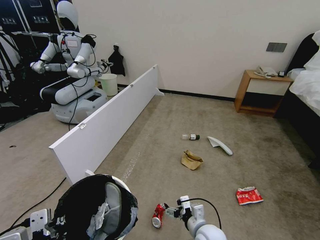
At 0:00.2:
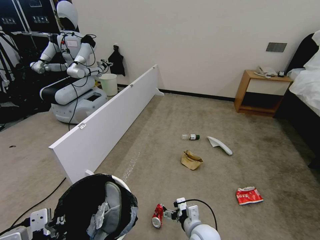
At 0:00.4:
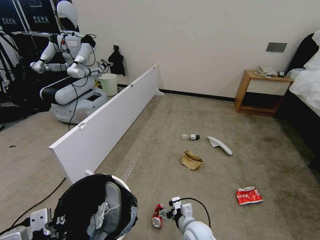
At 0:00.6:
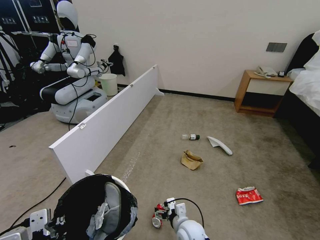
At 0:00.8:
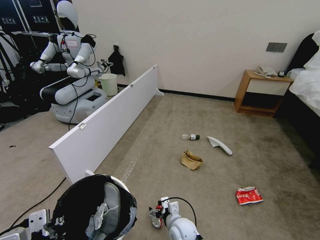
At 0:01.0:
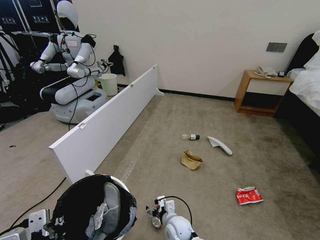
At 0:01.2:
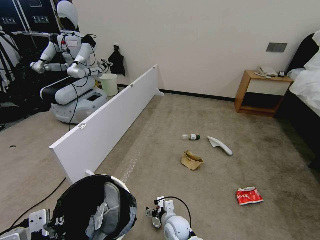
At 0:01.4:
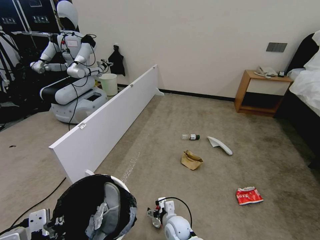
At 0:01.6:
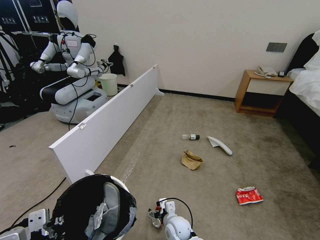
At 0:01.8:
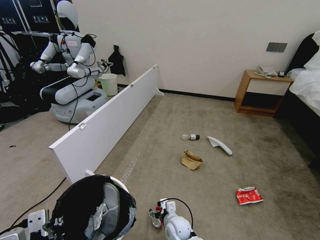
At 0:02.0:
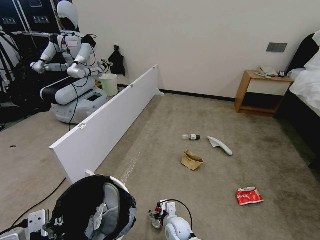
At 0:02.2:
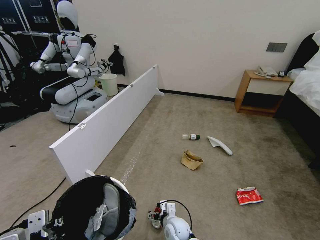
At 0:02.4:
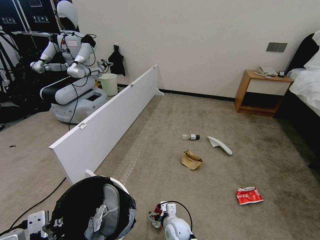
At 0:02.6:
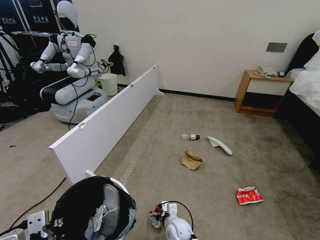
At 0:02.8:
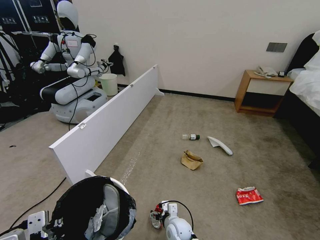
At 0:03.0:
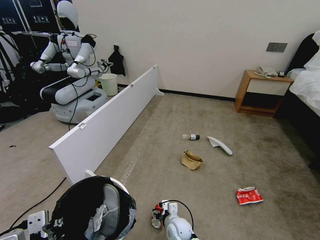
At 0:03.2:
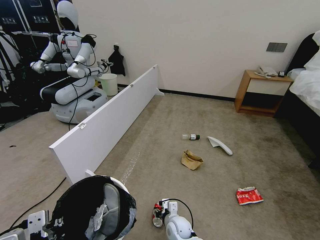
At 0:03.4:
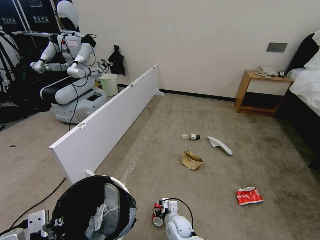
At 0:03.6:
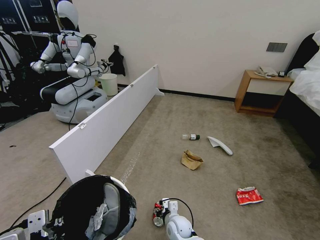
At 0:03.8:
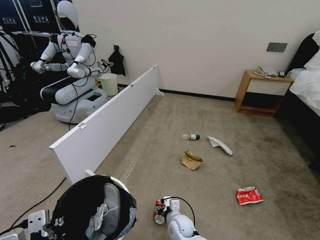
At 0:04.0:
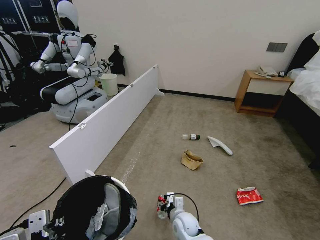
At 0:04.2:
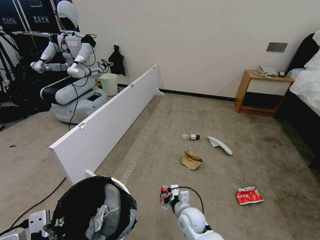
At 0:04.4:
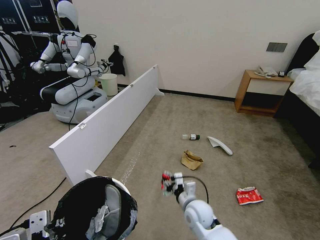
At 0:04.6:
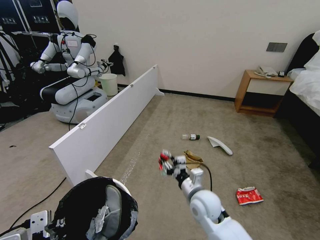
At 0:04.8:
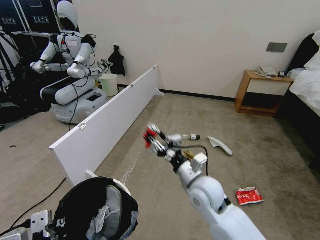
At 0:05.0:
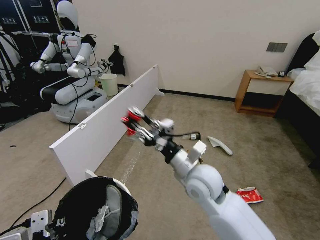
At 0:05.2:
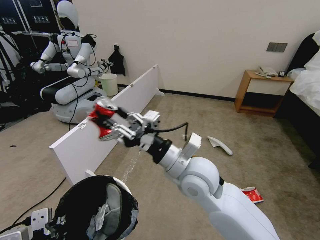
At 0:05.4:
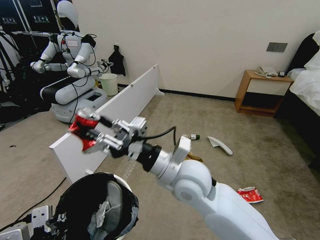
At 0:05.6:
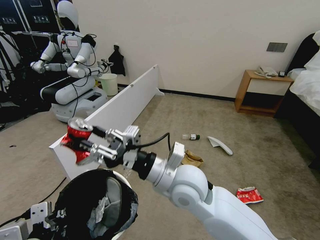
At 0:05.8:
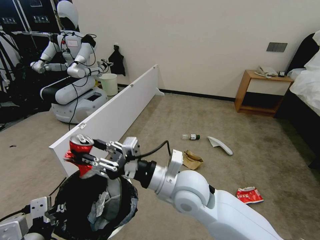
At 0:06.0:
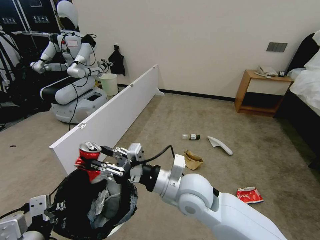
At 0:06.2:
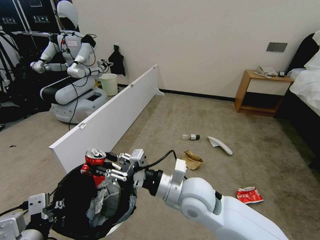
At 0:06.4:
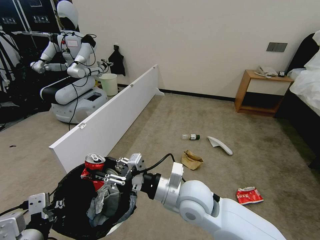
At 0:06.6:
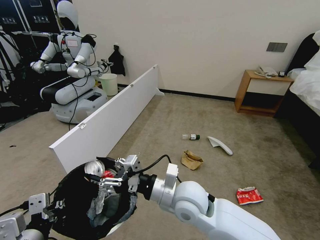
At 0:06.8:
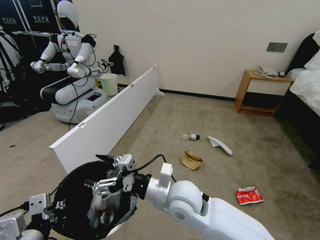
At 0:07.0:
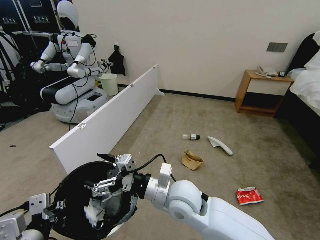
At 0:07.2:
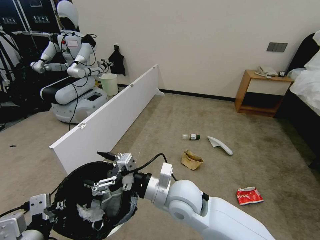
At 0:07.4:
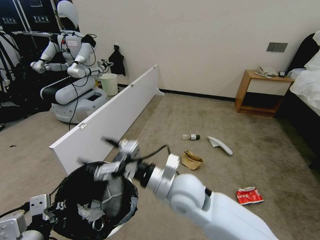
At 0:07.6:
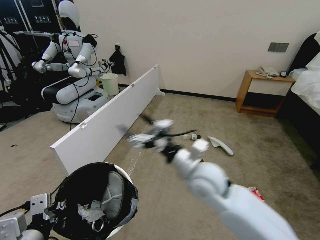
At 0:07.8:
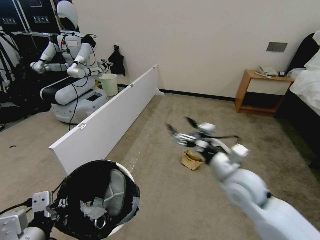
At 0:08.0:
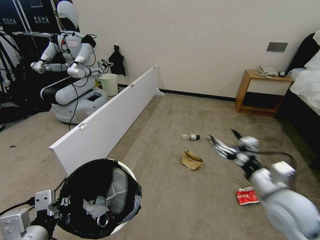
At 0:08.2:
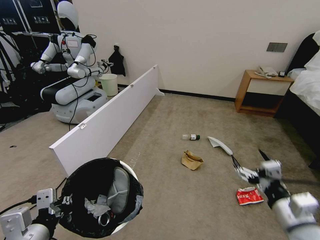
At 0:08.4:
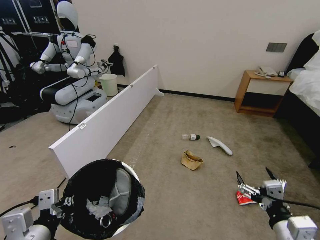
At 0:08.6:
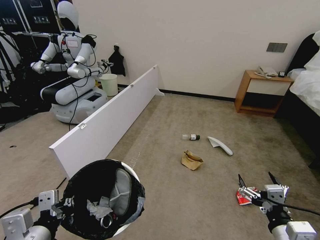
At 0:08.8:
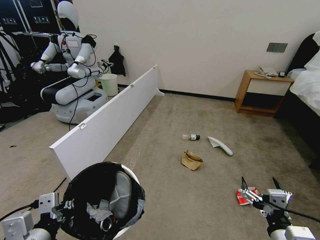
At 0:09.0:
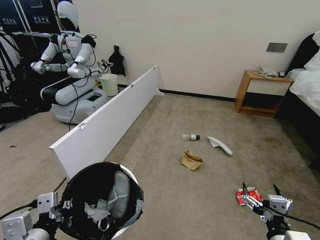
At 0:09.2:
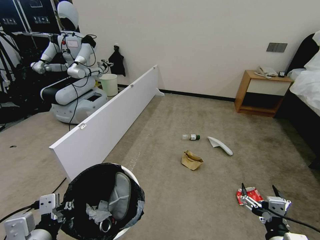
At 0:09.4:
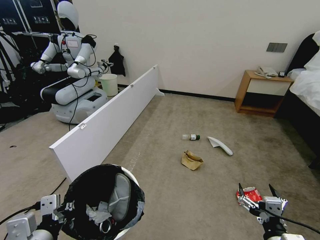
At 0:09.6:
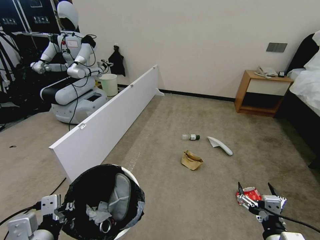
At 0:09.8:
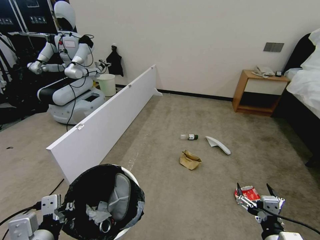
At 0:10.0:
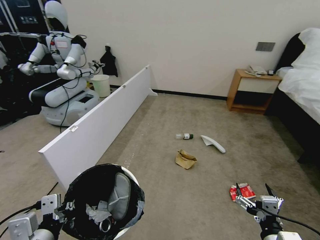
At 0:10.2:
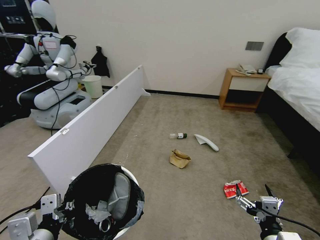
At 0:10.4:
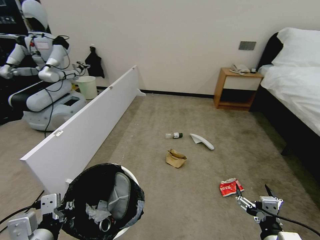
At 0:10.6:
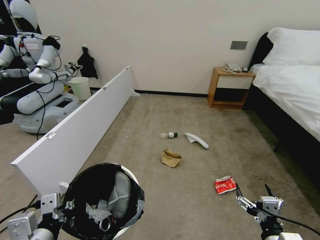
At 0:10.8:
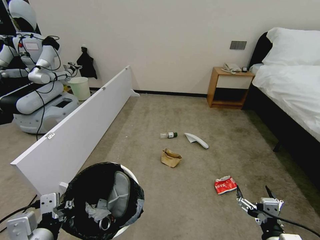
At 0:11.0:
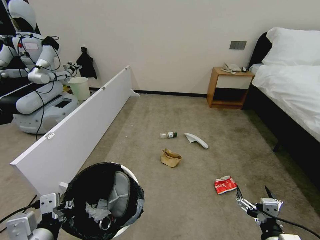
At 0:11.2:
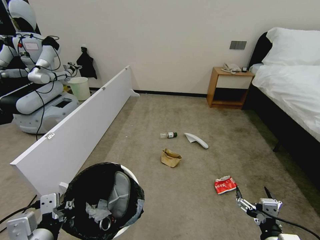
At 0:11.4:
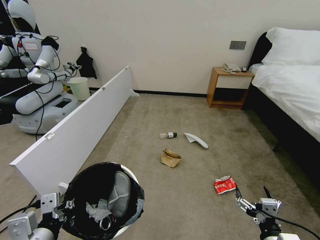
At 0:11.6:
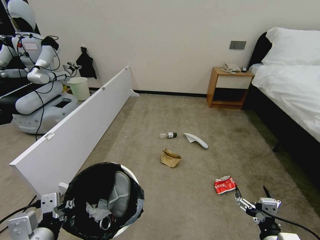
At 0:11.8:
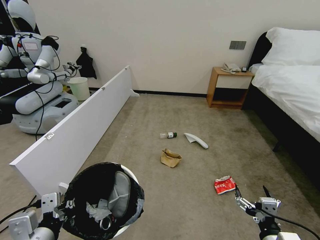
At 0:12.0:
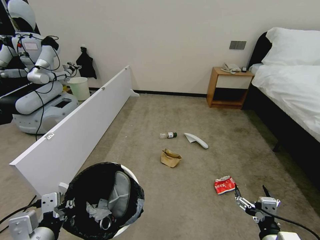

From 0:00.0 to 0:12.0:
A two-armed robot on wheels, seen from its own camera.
Task of the whole recording: Pick up the trash bin, then pick up the garbage from the floor and place it into the trash bin.
From 0:00.0 to 0:01.6: The right gripper travels to the left, downward and forward by approximately 15 cm.
From 0:01.6 to 0:03.0: The grippers make only small movements.
From 0:03.0 to 0:04.4: The right gripper moves upward and to the right, some 15 cm.
From 0:04.4 to 0:06.0: The right gripper is displaced upward by about 20 cm.
From 0:06.0 to 0:07.6: The right gripper travels to the right by some 5 cm, and opens its fingers.
From 0:07.6 to 0:09.0: The right gripper travels backward, to the right and downward by about 30 cm.
From 0:10.4 to 0:12.0: The grippers move only a little.

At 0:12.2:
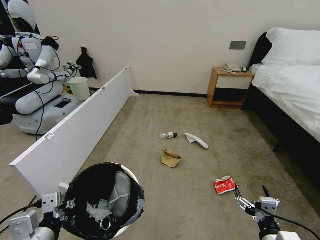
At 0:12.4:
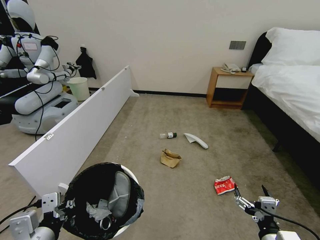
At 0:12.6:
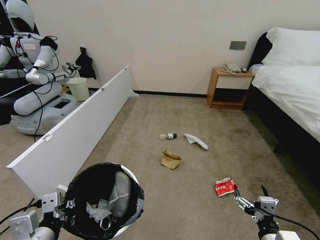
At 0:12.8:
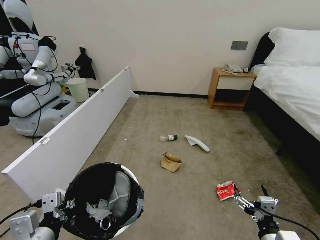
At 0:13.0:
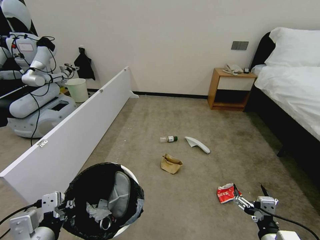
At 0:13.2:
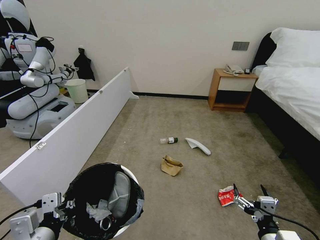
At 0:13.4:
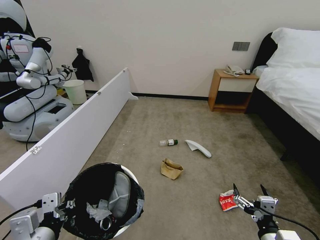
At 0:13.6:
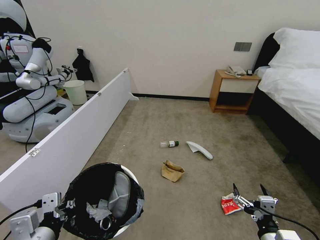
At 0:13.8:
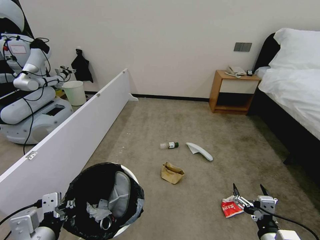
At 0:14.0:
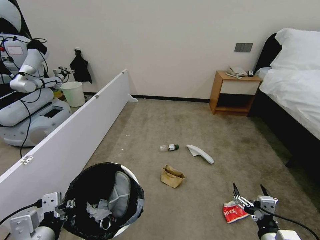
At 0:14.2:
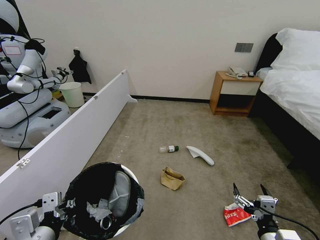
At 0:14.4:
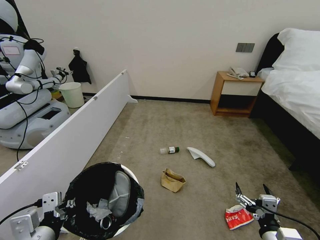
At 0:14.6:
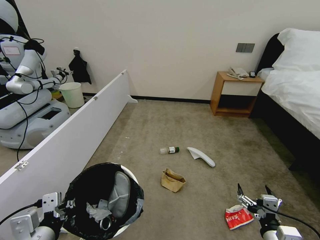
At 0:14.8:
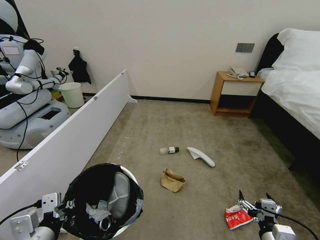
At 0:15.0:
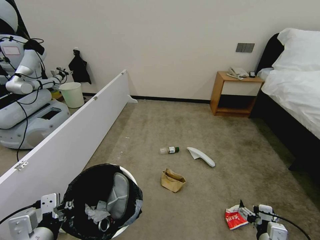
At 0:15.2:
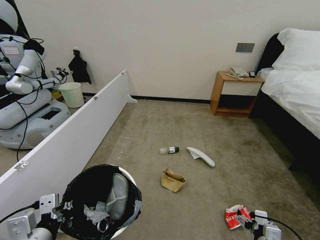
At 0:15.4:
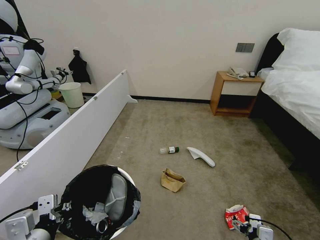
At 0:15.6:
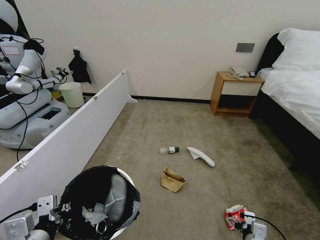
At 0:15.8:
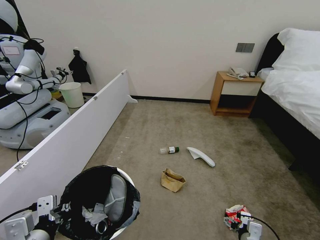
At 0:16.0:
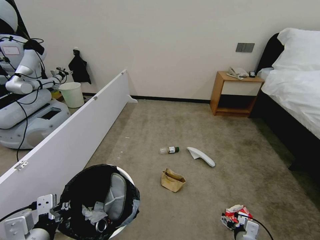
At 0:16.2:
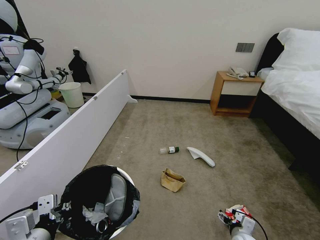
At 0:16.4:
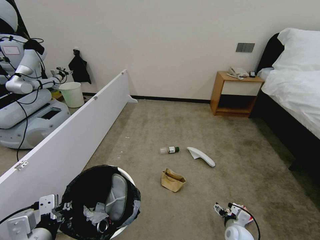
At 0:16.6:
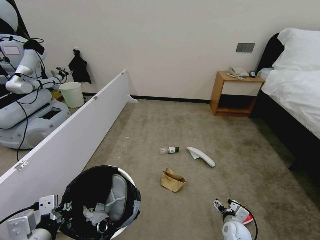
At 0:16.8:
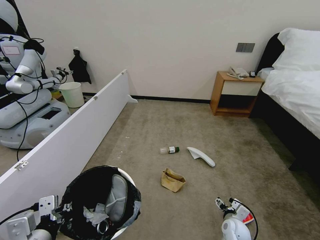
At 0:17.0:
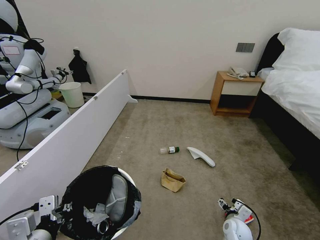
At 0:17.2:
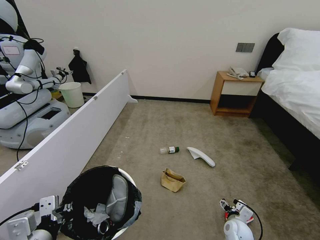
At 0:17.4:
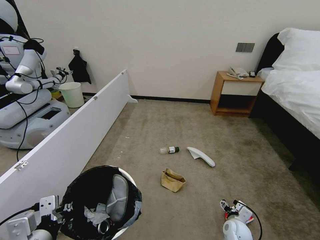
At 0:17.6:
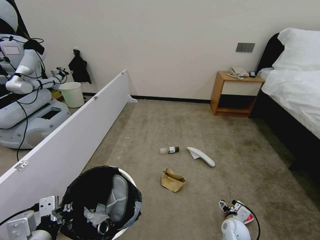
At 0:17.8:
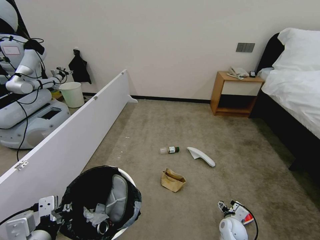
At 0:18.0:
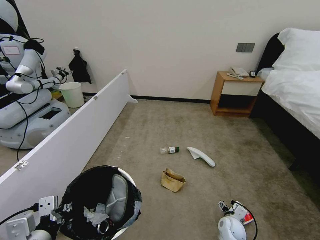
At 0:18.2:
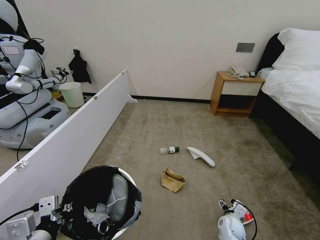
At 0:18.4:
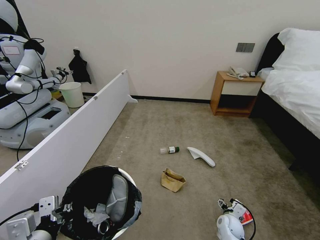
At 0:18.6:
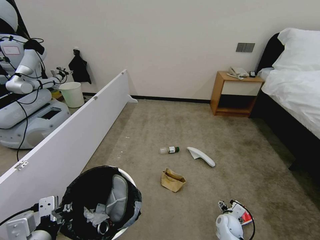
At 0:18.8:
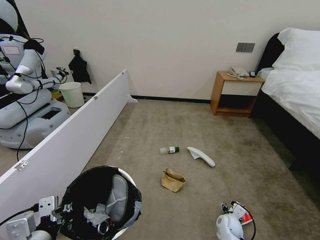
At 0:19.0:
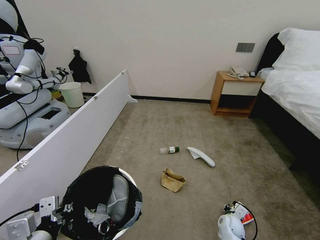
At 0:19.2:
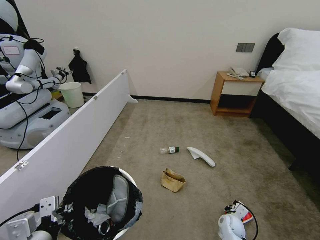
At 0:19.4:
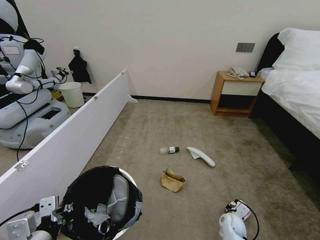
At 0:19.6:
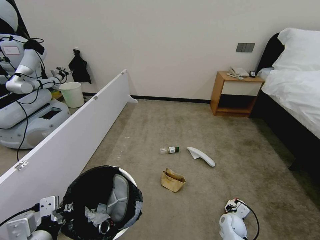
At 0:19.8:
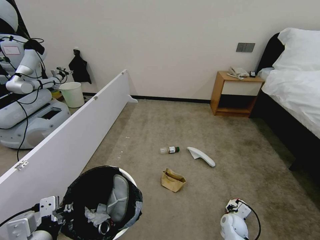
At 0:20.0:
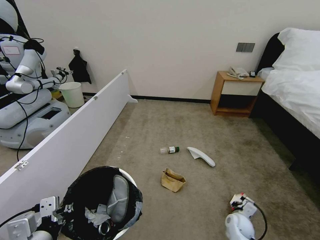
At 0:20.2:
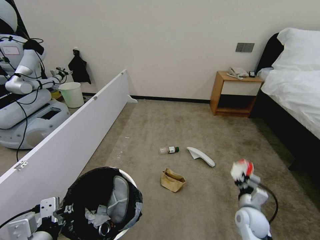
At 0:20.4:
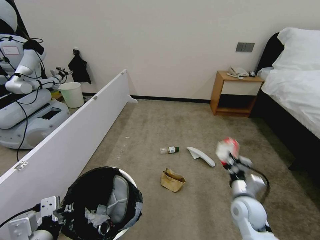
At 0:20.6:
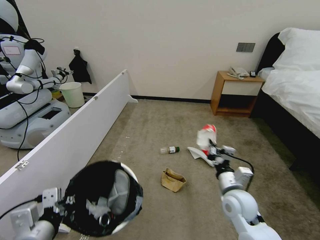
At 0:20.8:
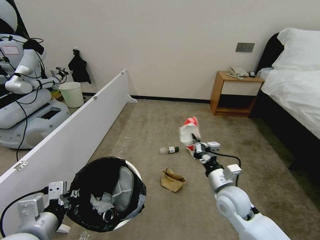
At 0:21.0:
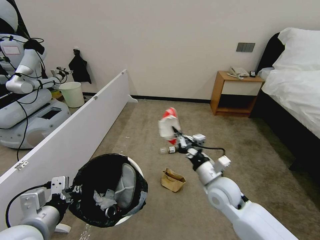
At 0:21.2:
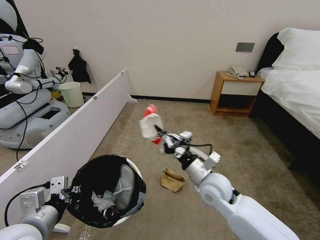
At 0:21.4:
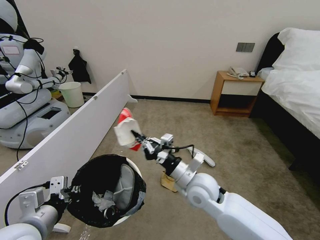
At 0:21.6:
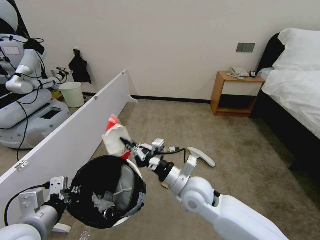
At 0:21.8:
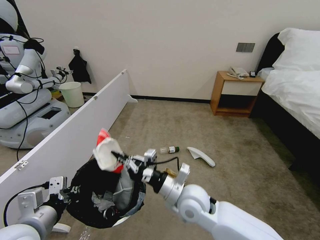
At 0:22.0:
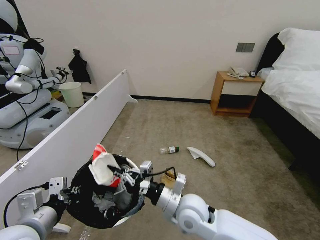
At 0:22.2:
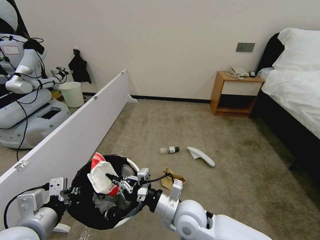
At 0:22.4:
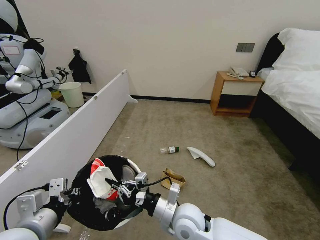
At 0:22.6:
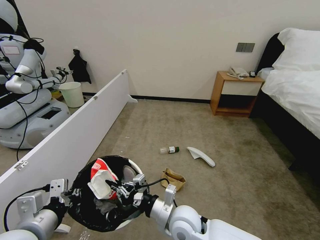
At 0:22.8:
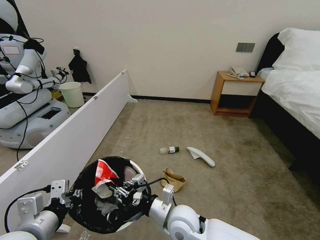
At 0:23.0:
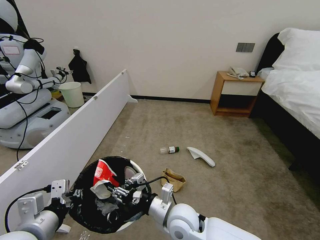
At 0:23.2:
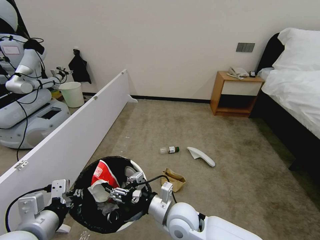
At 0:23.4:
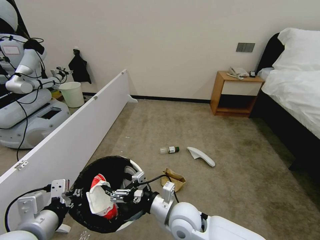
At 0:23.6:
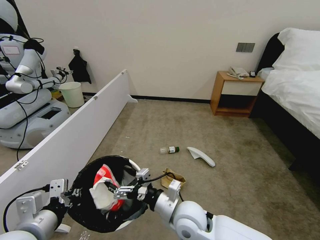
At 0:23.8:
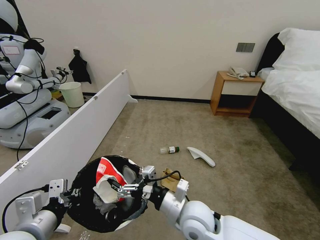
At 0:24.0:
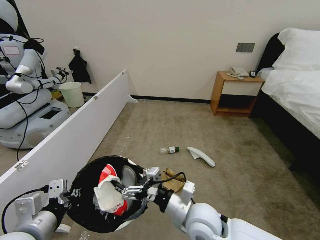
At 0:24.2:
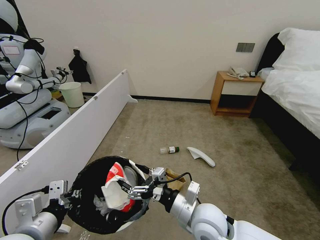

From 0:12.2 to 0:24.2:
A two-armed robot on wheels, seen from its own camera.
Task of the whole recording: Pick up the trash bin, then pick up the garbage from the floor and place it into the trash bin.
From 0:12.2 to 0:13.8: Both grippers stay about where they are.
From 0:13.8 to 0:15.2: The right gripper shifts about 10 cm downward.
From 0:15.2 to 0:16.6: The right gripper is displaced forward and downward by approximately 15 cm.
From 0:16.6 to 0:18.2: The grippers make only small movements.
From 0:18.2 to 0:19.8: The right gripper closes its fingers.
From 0:19.8 to 0:21.2: The right gripper travels upward and to the left by about 30 cm, while the left gripper heads forward, covering roughly 5 cm.
From 0:21.2 to 0:22.6: The right gripper moves to the left, backward and downward, approximately 15 cm.
From 0:22.6 to 0:24.2: The right gripper shifts approximately 5 cm to the right, and opens up.
